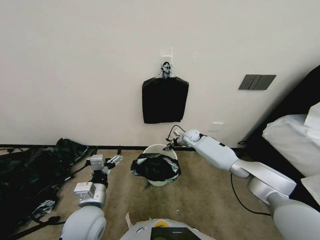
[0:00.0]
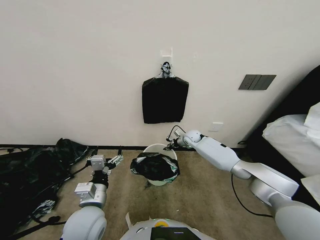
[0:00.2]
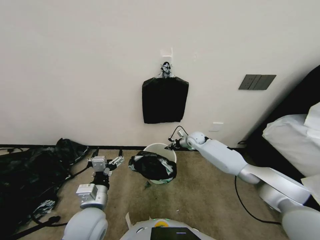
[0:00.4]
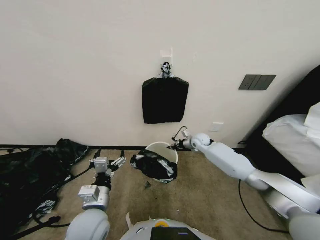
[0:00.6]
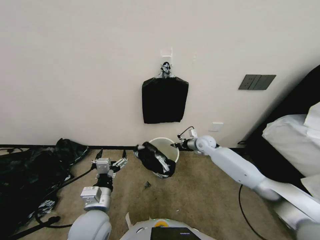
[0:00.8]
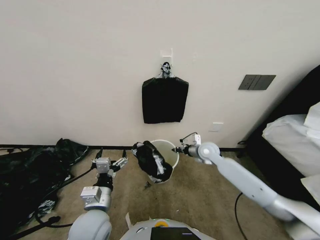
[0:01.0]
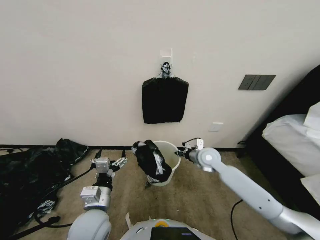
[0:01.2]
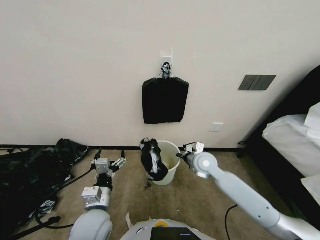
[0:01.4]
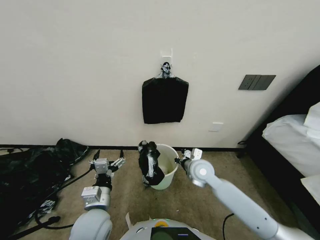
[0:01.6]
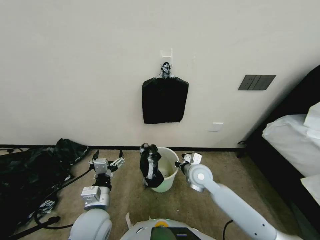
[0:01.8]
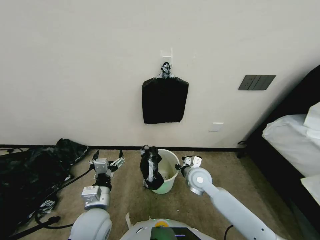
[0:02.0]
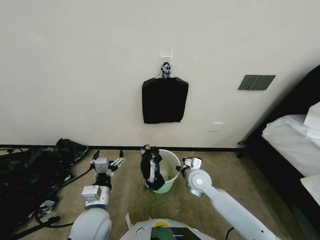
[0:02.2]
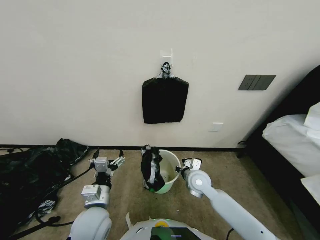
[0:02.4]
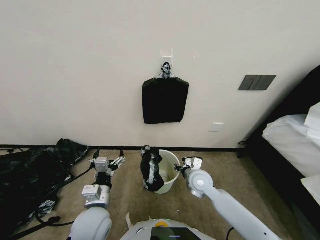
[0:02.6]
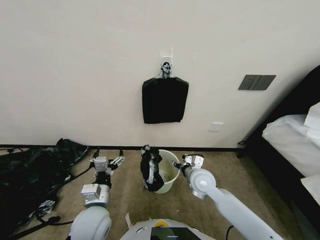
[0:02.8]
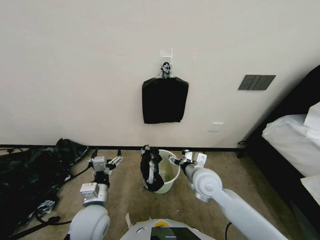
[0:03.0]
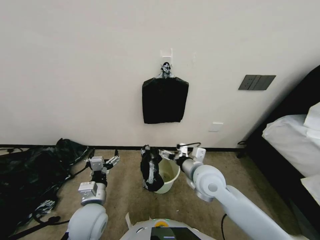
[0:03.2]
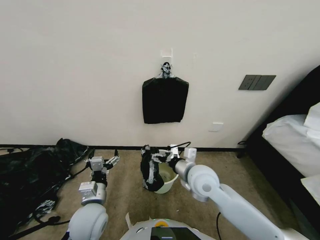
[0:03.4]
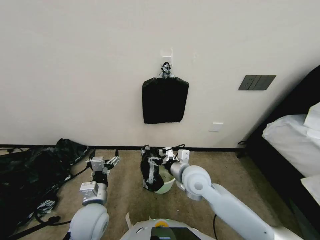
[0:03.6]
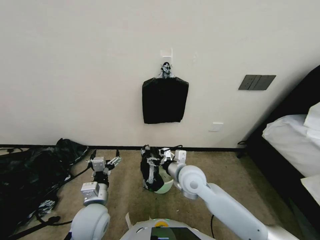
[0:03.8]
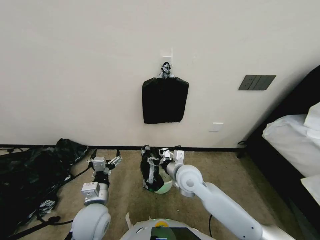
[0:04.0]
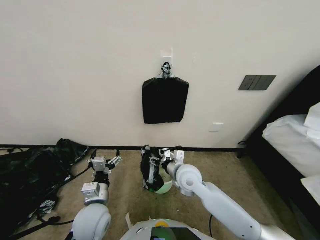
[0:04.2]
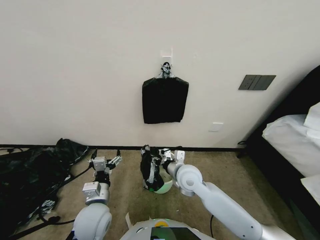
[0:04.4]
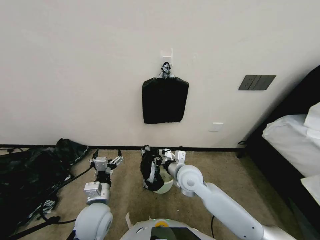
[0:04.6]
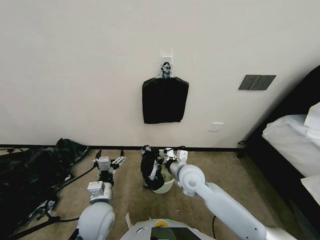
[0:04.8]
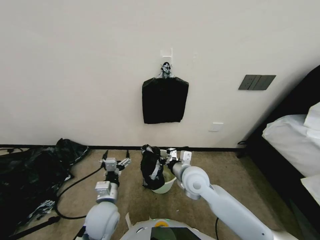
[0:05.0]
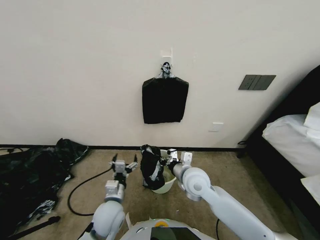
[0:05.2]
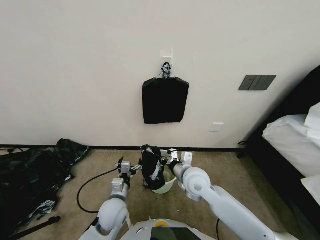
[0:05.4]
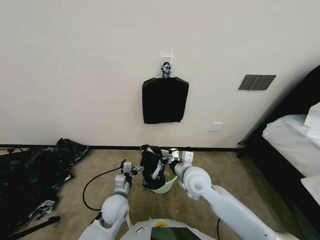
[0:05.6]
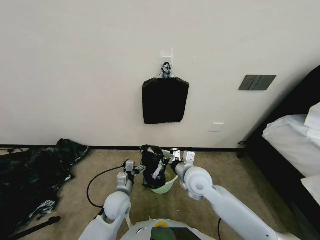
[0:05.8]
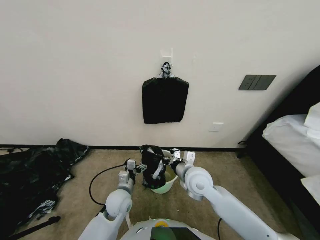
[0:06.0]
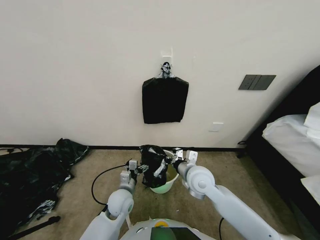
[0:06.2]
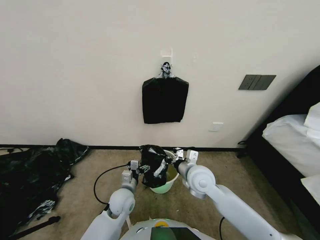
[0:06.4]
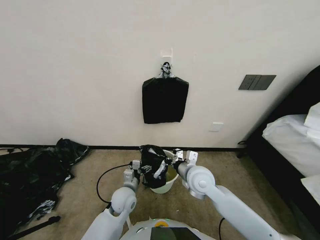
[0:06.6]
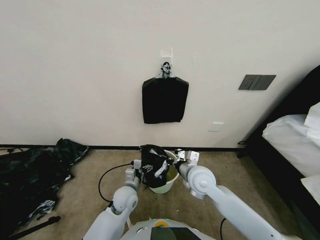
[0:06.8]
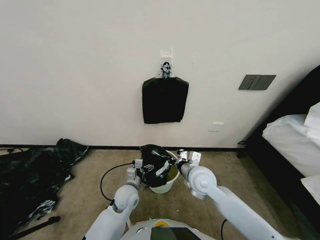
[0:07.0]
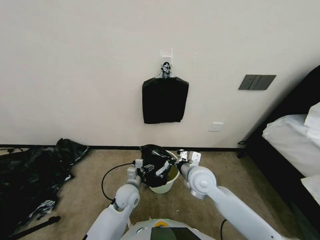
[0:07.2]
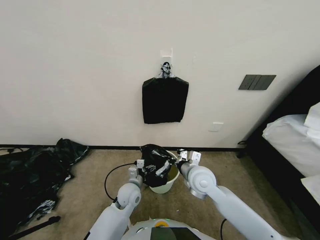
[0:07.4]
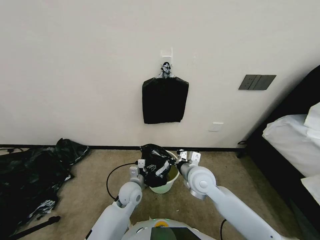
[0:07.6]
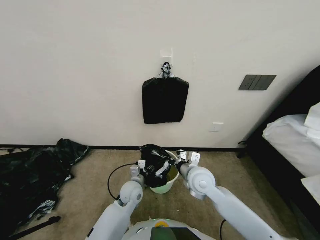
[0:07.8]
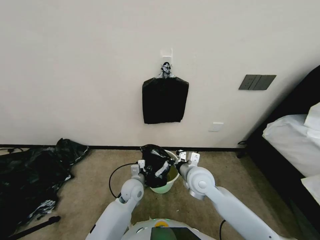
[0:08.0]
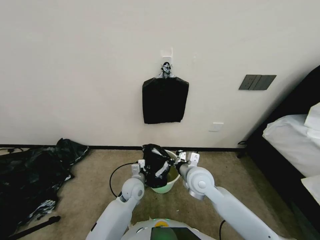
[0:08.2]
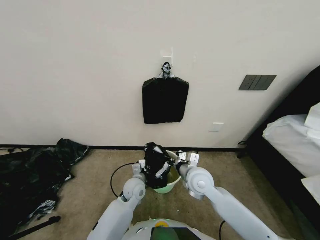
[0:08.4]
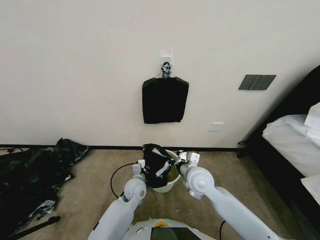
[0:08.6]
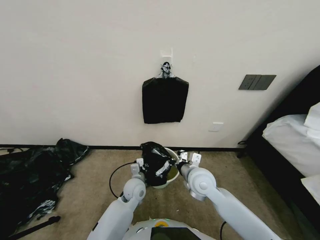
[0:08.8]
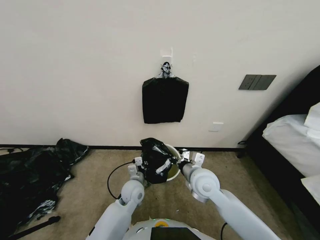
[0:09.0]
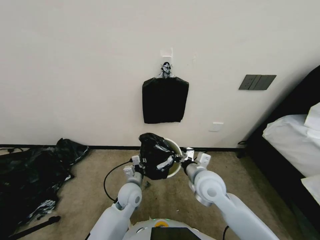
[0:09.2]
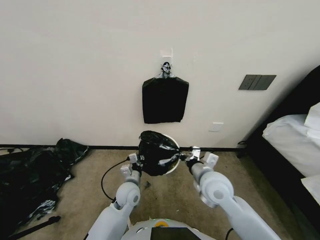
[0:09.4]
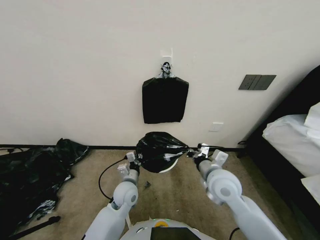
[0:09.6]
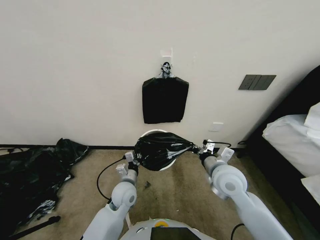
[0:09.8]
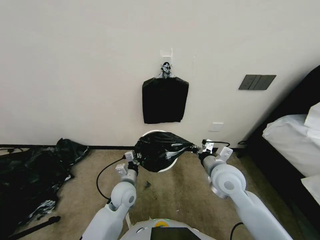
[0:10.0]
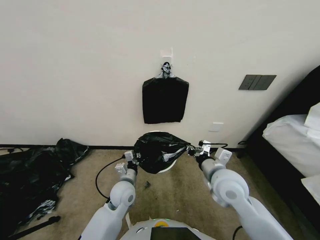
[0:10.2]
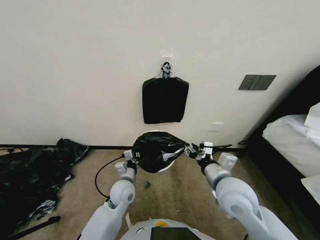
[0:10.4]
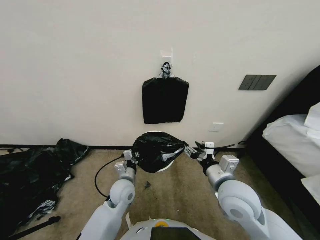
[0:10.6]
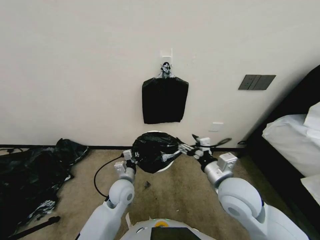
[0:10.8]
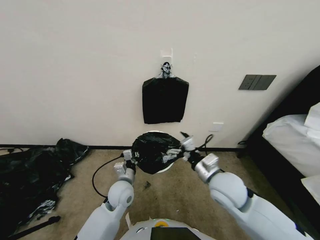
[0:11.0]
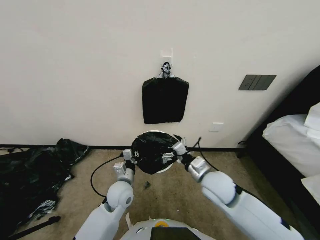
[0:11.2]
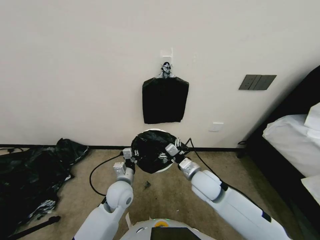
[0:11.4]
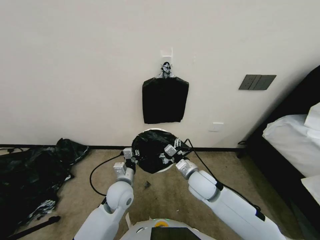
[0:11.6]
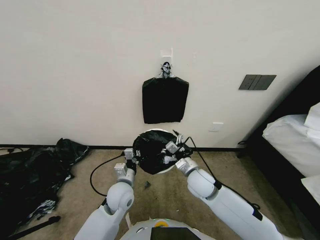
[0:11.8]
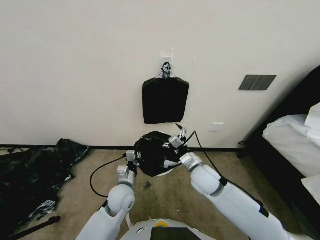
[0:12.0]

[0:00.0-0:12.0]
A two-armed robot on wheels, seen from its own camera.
Task of the whole recording: Place a trash bag onto the trash bin.
0:00.0 to 0:01.6: The right gripper goes roughly 25 cm backward, and closes up.
0:01.6 to 0:03.0: The right gripper heads backward, covering about 5 cm, and opens its fingers.
0:03.0 to 0:04.4: The right gripper shifts about 5 cm to the left.
0:04.4 to 0:06.0: The left gripper travels downward and forward by roughly 10 cm; the right gripper closes its fingers.
0:06.0 to 0:07.6: The left gripper changes place by some 5 cm.
0:07.6 to 0:09.0: The left gripper closes its fingers.
0:09.0 to 0:10.4: The left gripper shifts by about 5 cm. Meanwhile the right gripper travels upward and to the right by some 5 cm, and opens up.
0:10.4 to 0:12.0: The right gripper travels downward and forward by about 10 cm, and opens.

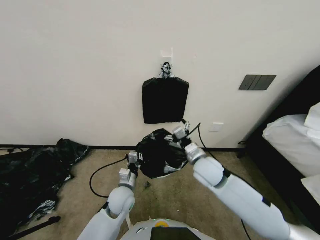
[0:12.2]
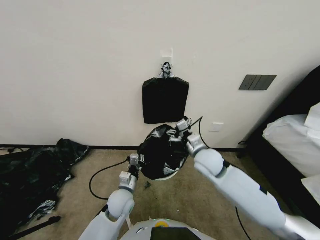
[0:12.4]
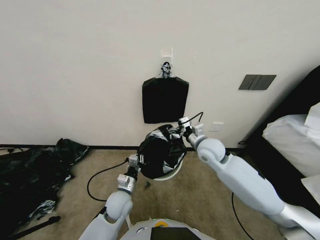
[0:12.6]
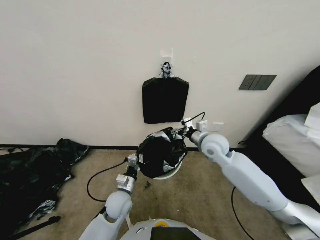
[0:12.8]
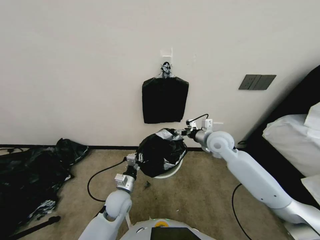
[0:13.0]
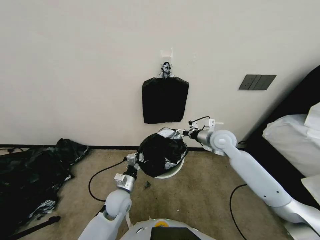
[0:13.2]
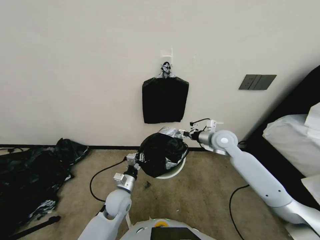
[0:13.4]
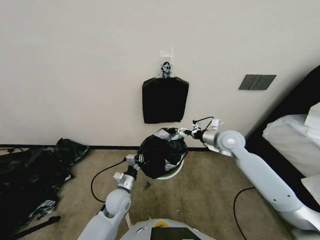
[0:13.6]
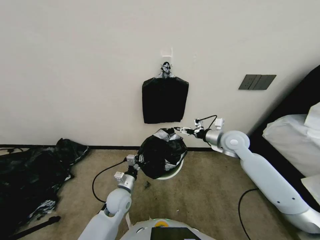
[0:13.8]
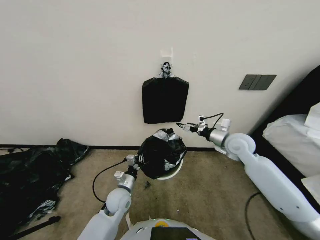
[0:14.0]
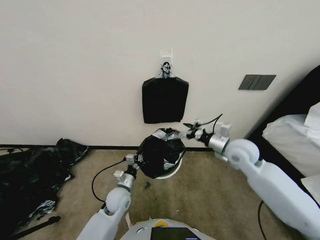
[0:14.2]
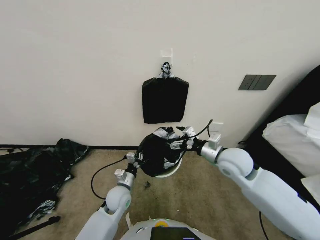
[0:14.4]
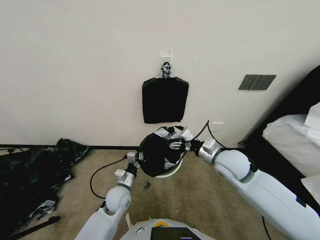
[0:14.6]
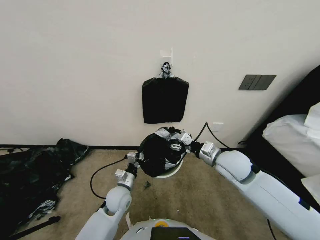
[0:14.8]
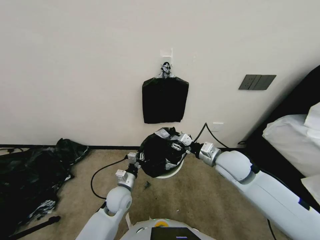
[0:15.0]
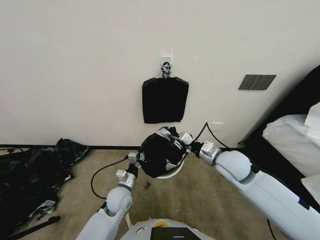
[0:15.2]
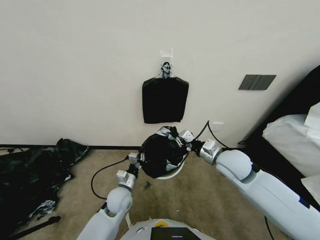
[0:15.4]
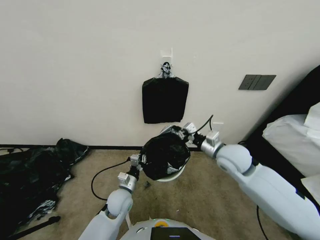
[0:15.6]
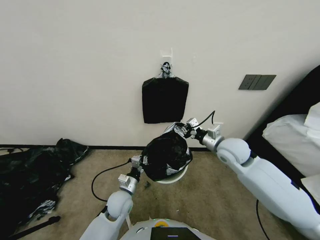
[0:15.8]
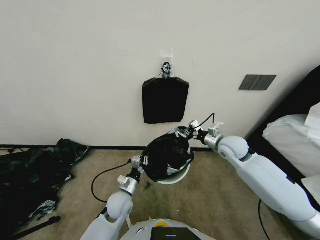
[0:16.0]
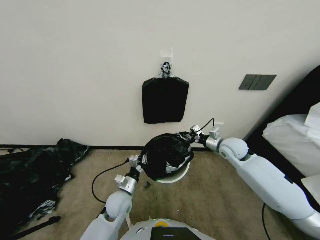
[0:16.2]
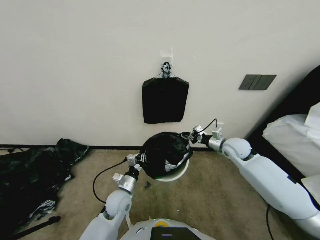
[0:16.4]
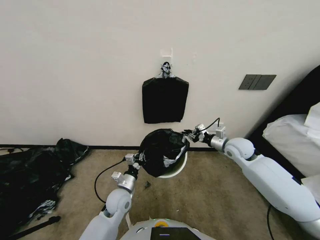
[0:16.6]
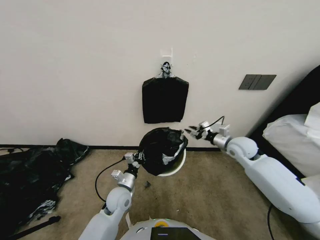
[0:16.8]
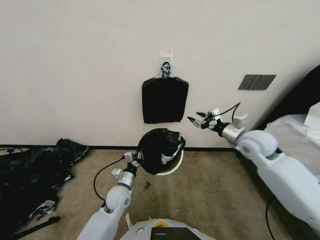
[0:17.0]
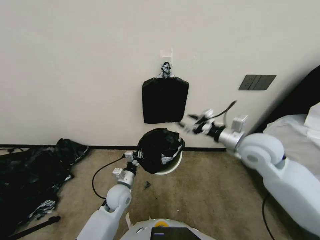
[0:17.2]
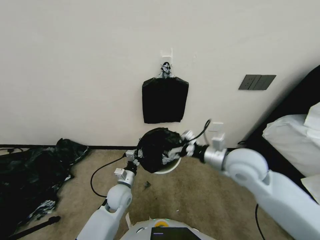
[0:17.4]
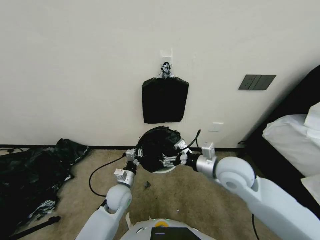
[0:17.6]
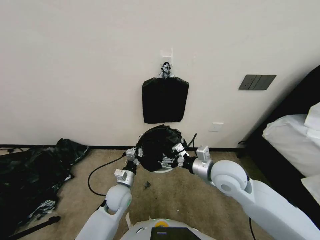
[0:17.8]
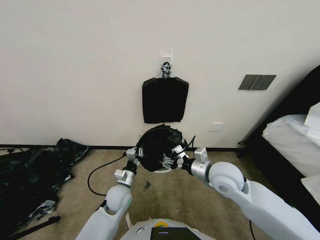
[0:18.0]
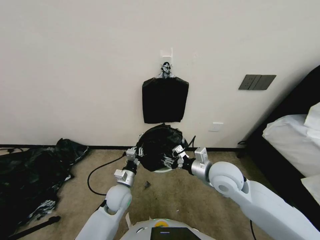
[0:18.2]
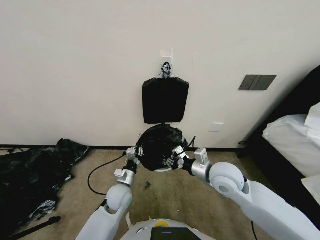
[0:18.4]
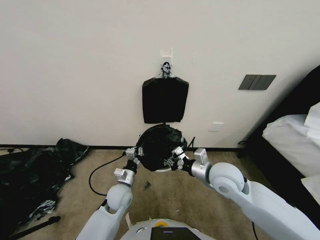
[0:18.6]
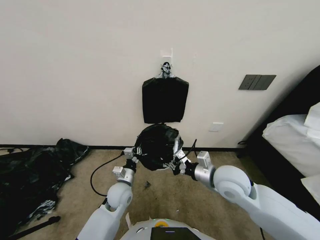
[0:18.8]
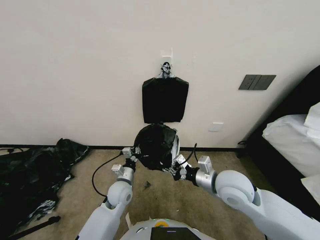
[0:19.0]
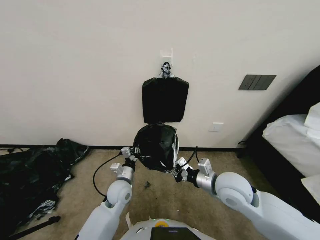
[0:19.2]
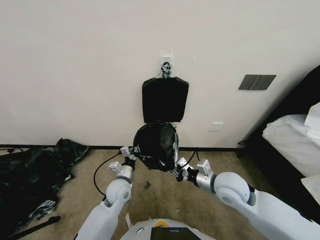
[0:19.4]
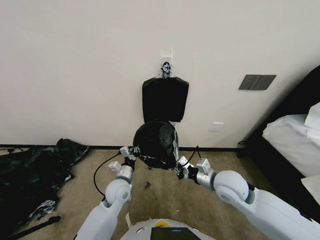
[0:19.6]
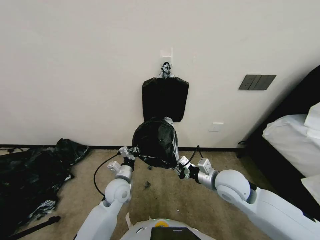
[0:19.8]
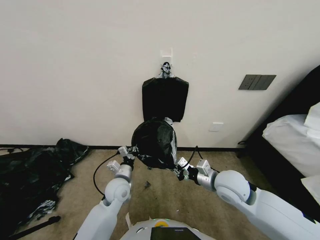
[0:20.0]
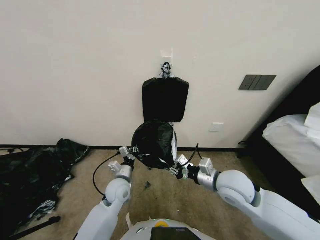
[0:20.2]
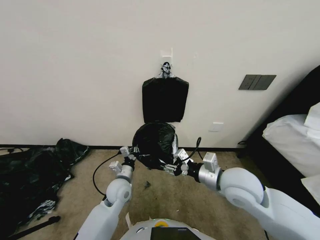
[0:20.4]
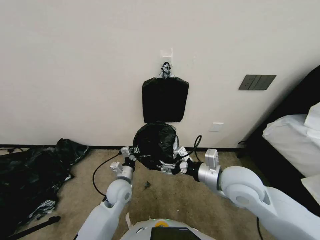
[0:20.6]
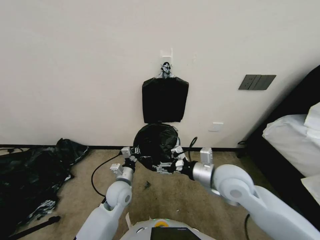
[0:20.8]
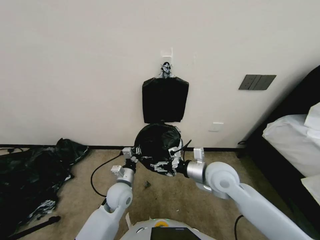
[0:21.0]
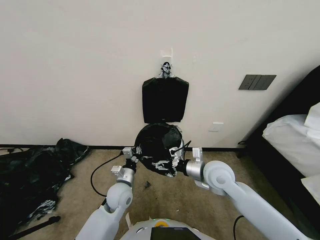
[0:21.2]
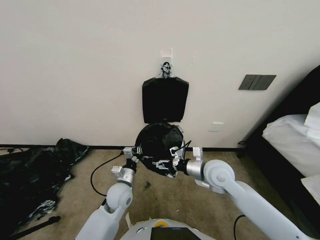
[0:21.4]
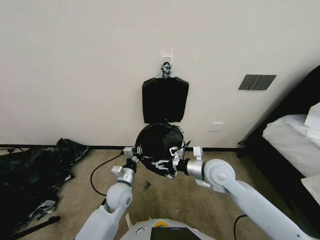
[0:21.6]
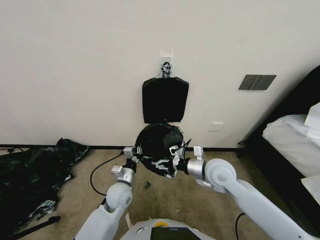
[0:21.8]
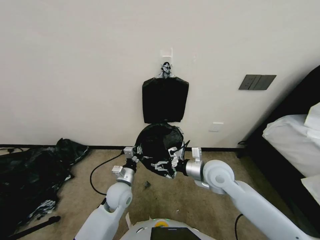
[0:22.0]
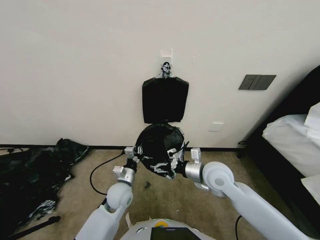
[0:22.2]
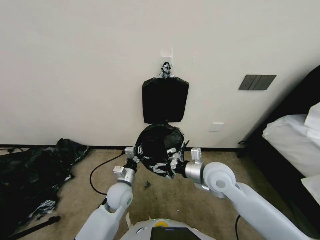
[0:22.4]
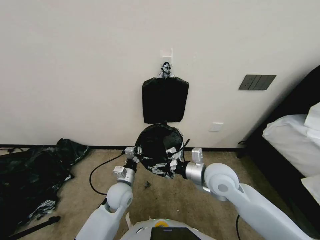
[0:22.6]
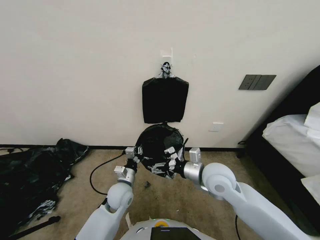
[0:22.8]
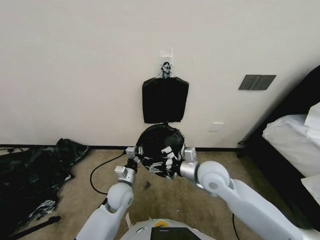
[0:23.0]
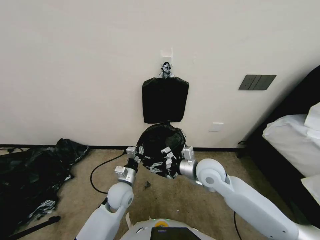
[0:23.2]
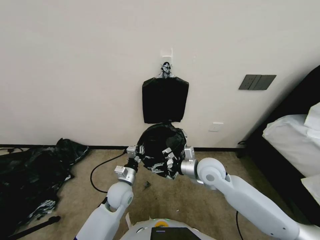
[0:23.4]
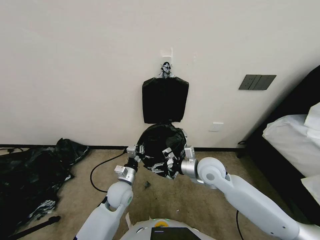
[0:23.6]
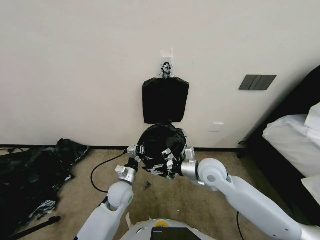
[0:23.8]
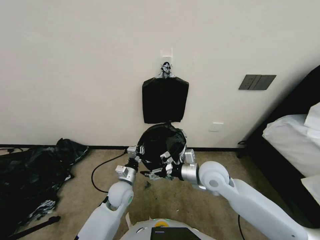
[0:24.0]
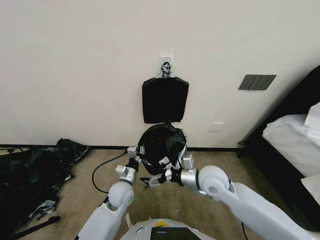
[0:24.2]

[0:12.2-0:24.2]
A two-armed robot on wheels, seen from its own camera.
Task of the whole recording: Place a trash bag onto the trash bin.
0:12.2 to 0:13.8: The right gripper shifts roughly 20 cm to the right, forward and upward.
0:13.8 to 0:15.2: The right gripper travels backward and to the left by some 10 cm, and closes.
0:15.2 to 0:16.6: The right gripper goes approximately 15 cm forward and to the right.
0:16.6 to 0:18.2: The right gripper heads backward and to the left, covering approximately 20 cm, and opens up.
0:18.2 to 0:19.8: The right gripper closes its fingers.
0:19.8 to 0:21.2: The right gripper opens.
0:21.2 to 0:24.2: The grippers stay close to where they were, moving slightly.
